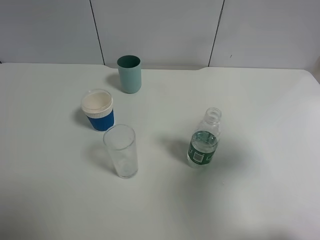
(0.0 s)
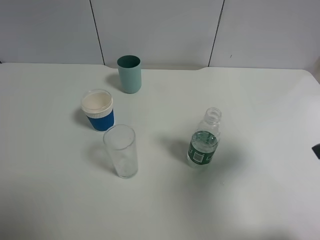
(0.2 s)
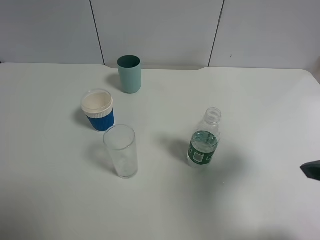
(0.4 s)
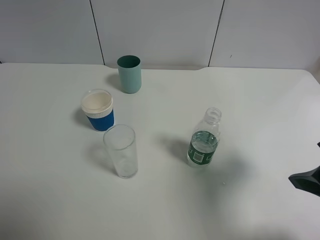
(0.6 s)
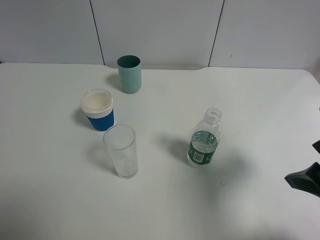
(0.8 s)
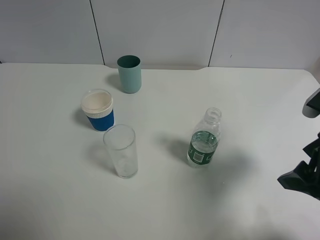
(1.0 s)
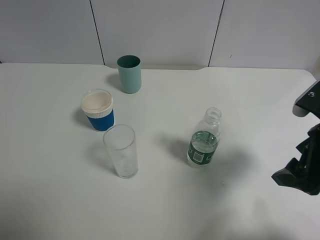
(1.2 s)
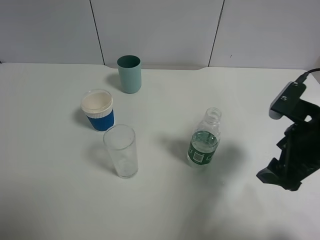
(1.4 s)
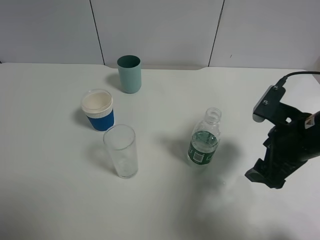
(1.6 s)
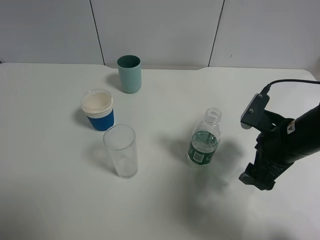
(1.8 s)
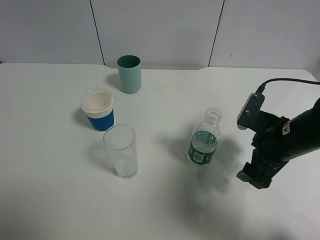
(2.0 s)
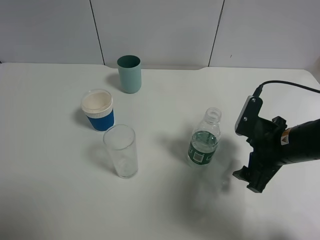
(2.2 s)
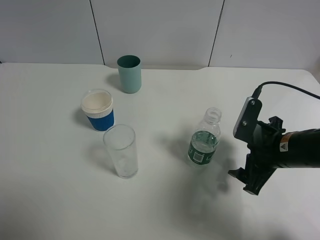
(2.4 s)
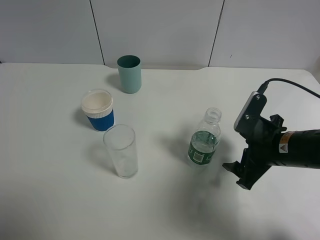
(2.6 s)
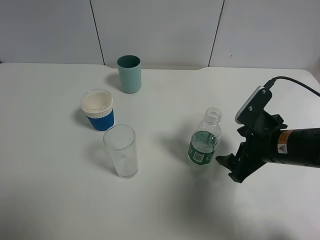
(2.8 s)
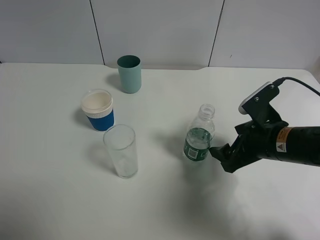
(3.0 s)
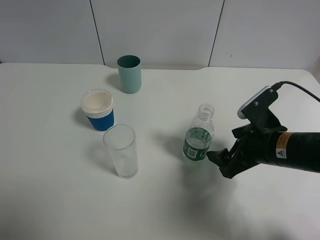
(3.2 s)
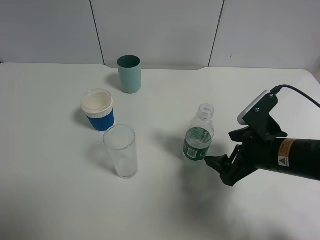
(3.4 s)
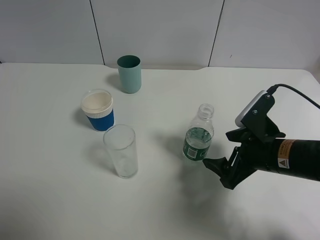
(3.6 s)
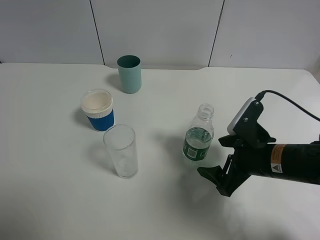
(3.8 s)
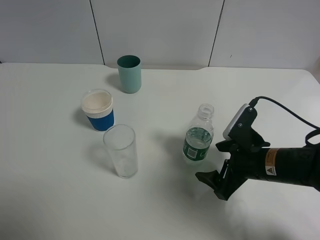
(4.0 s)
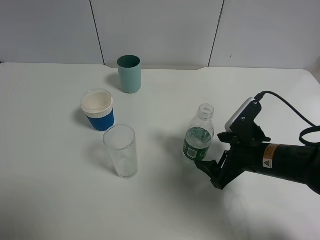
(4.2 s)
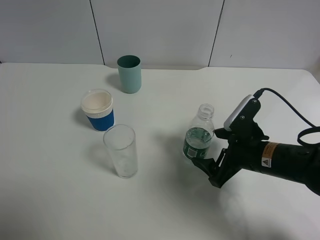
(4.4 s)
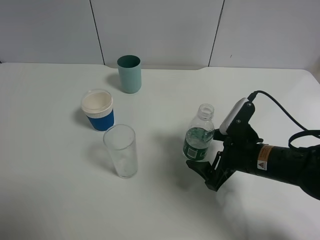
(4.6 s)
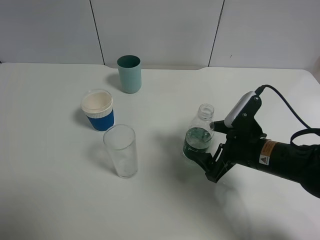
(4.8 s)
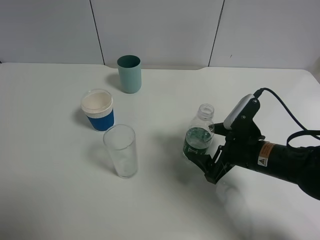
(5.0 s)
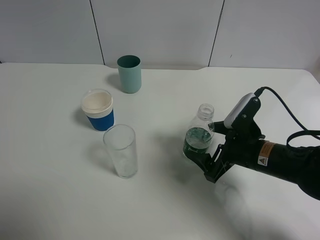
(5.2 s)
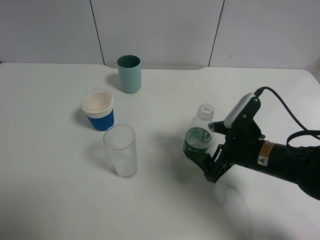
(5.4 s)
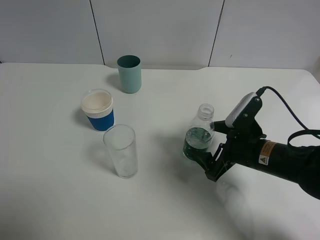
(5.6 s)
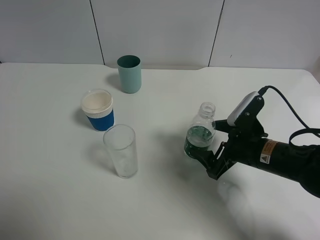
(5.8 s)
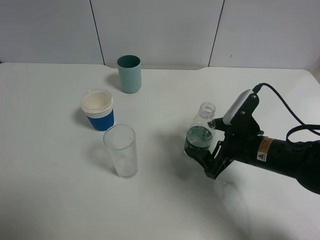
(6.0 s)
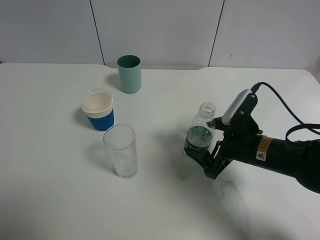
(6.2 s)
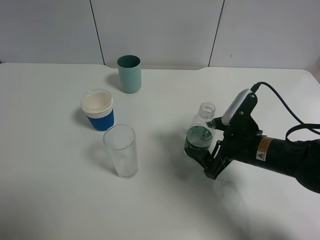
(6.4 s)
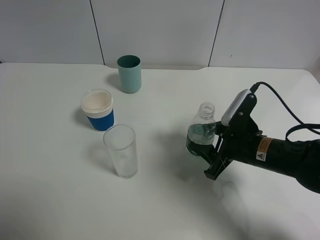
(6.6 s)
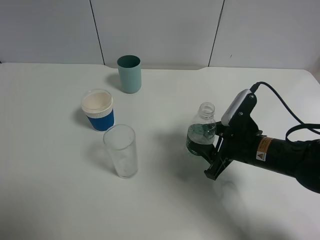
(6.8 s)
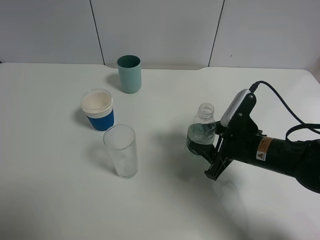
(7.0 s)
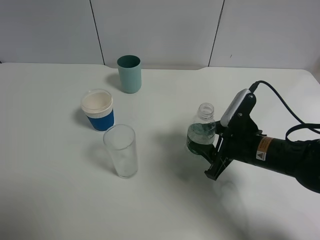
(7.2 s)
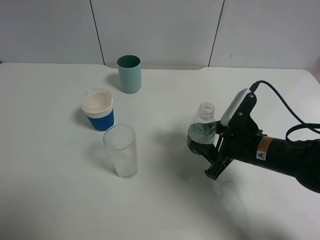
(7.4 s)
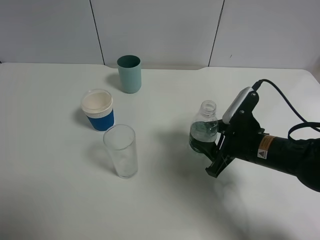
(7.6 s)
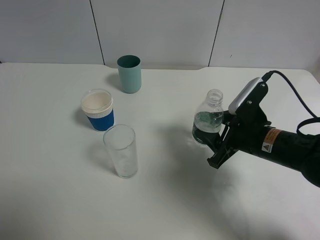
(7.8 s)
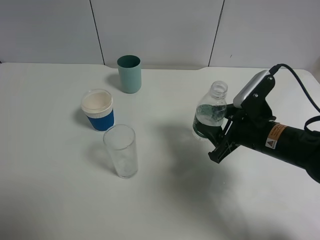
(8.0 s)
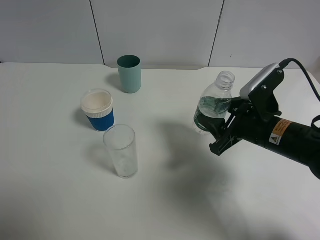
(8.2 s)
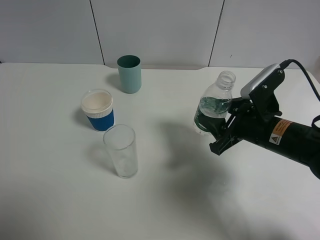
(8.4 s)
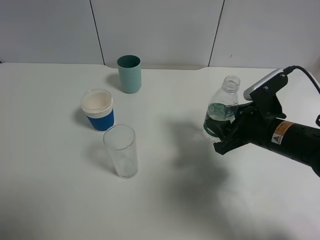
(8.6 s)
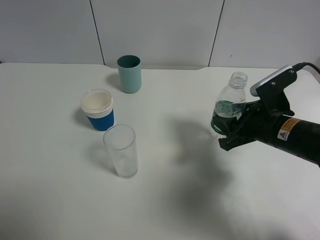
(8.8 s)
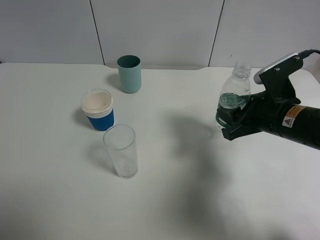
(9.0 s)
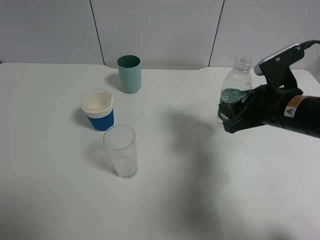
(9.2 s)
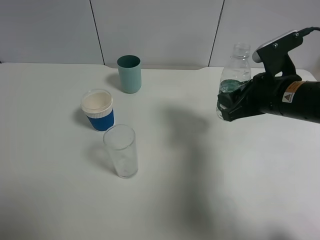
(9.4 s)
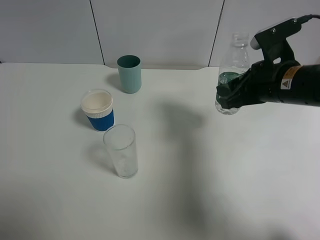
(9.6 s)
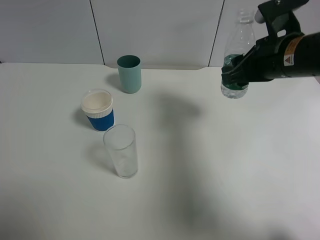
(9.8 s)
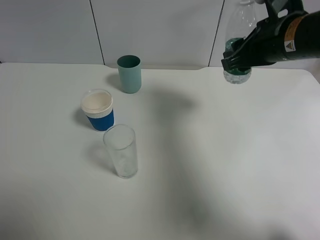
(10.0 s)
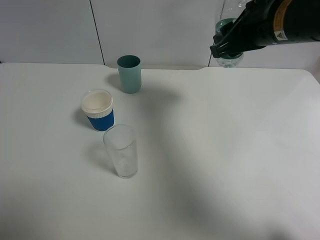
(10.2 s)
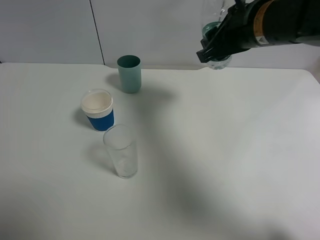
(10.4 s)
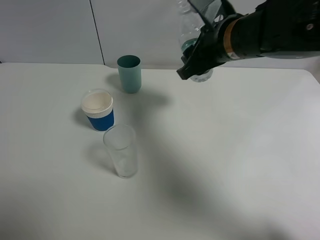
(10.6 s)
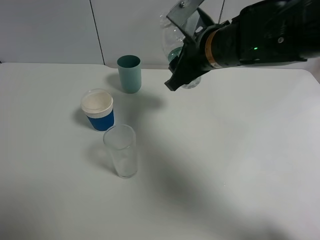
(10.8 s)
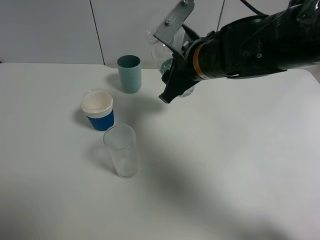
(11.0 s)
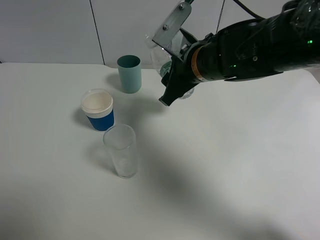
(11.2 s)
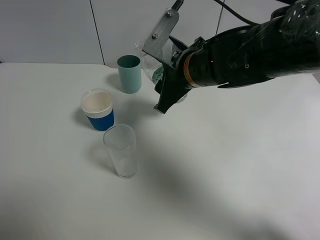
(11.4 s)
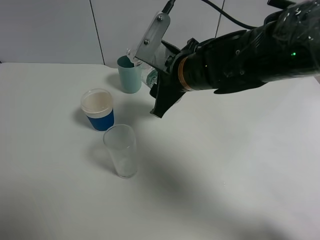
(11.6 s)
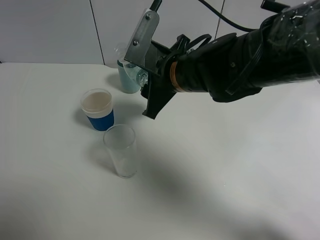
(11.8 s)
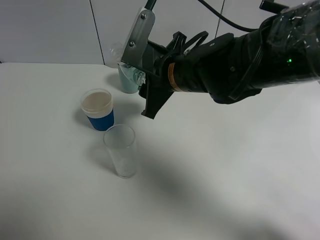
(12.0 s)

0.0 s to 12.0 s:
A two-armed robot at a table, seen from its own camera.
Task of the whole recording: use a gripper to hold the bottle of the drink and pour it into a random cup.
Step, 0.0 to 6.8 s: Grasp the mineral water bottle with the right gripper.
0.0 to 1.6 s: The right gripper goes roughly 15 cm downward, forward and to the left.
3.0 to 4.4 s: There are only small adjustments of the grippers.
4.4 to 6.0 s: The grippers make only small movements.
6.0 to 7.6 s: The right gripper closes its fingers.
7.6 to 9.0 s: The right gripper shifts about 5 cm upward.
9.0 to 10.4 s: The right gripper shifts roughly 15 cm upward, to the left and forward.
10.4 to 12.0 s: The right gripper moves to the left and downward, roughly 15 cm.

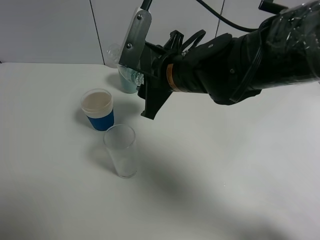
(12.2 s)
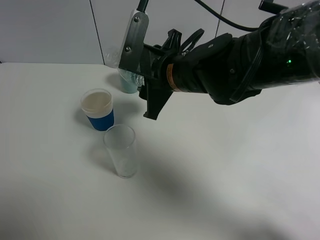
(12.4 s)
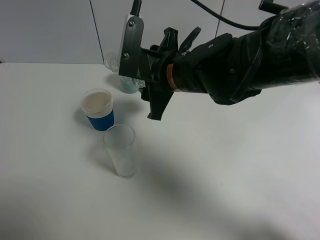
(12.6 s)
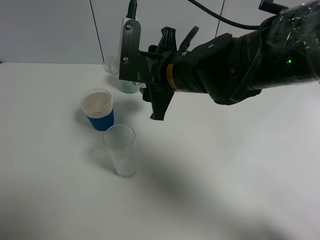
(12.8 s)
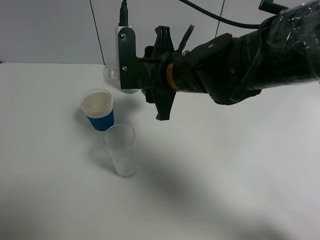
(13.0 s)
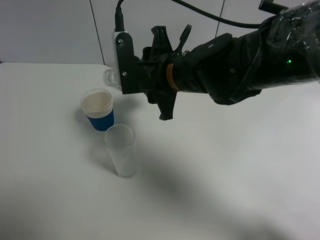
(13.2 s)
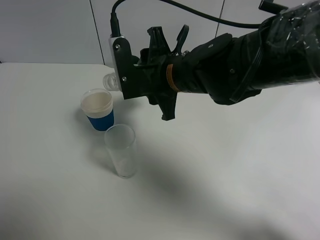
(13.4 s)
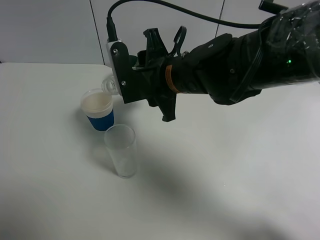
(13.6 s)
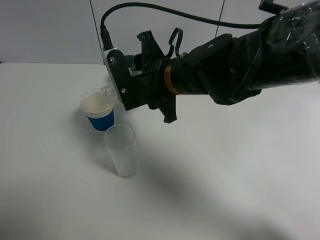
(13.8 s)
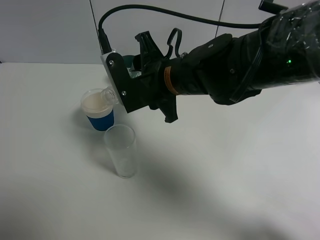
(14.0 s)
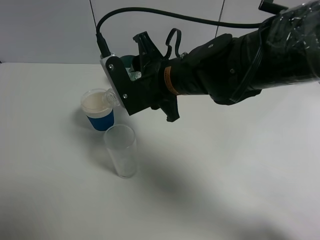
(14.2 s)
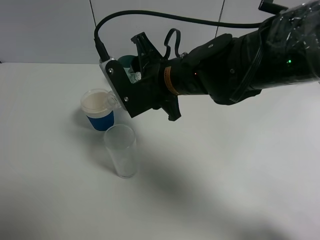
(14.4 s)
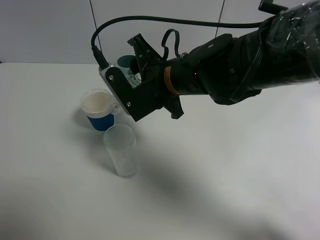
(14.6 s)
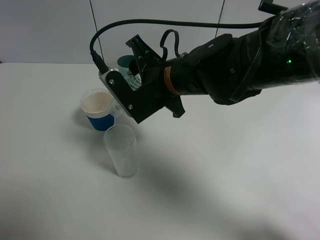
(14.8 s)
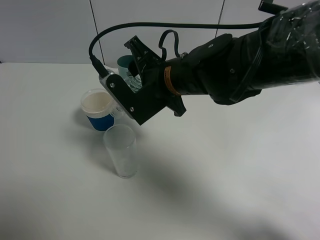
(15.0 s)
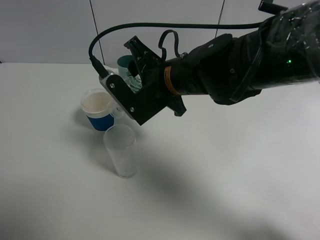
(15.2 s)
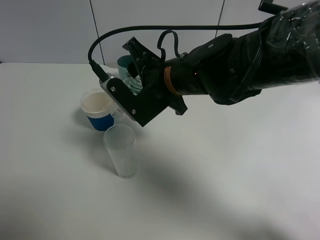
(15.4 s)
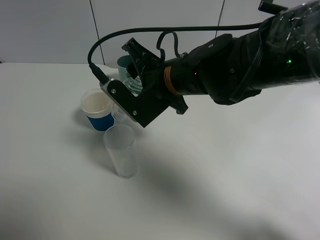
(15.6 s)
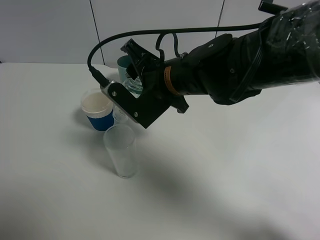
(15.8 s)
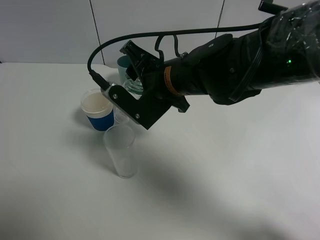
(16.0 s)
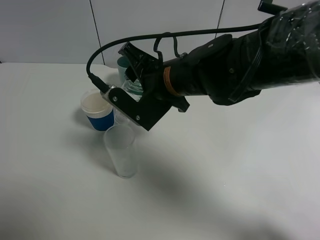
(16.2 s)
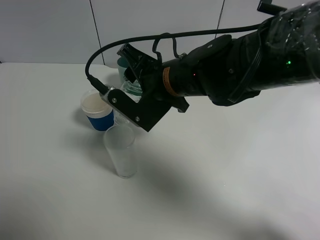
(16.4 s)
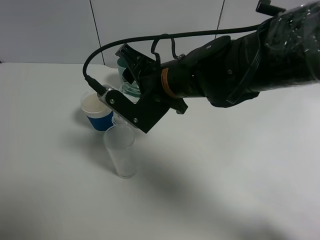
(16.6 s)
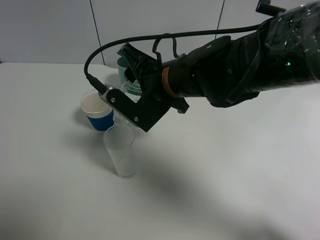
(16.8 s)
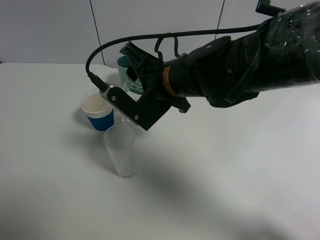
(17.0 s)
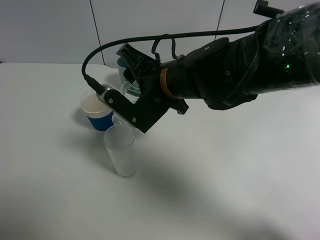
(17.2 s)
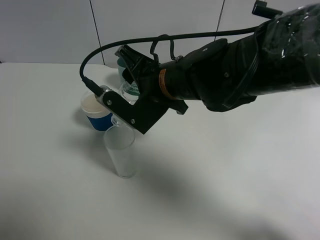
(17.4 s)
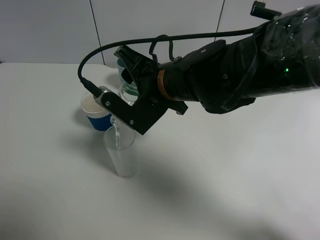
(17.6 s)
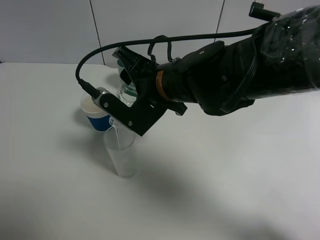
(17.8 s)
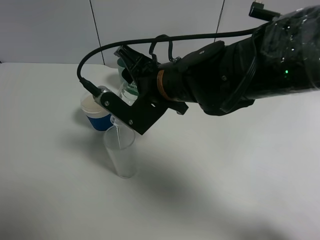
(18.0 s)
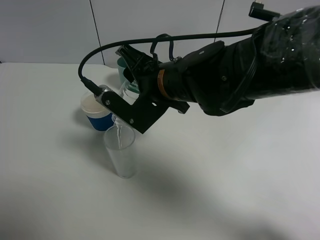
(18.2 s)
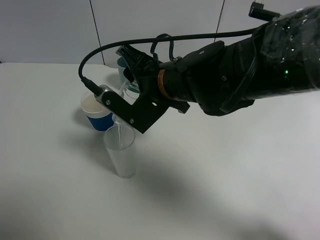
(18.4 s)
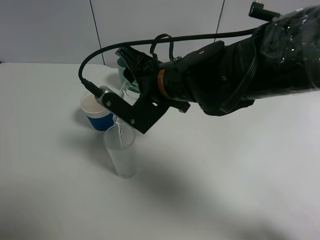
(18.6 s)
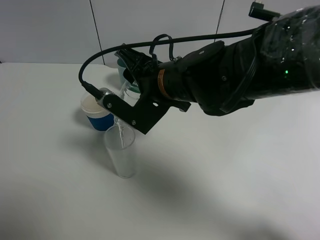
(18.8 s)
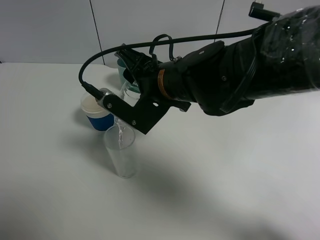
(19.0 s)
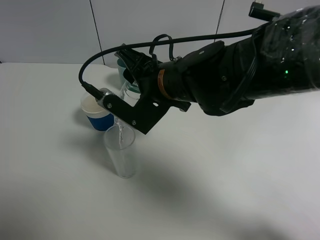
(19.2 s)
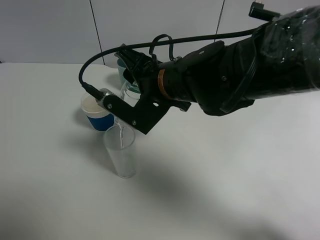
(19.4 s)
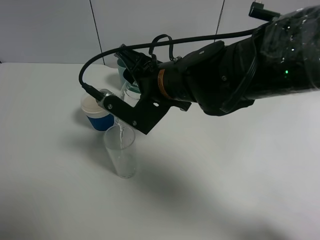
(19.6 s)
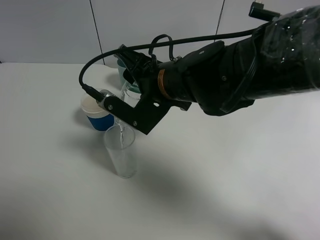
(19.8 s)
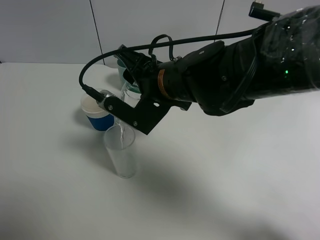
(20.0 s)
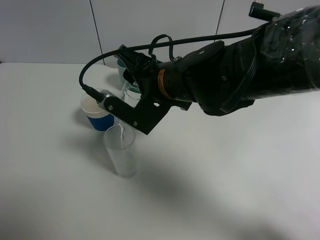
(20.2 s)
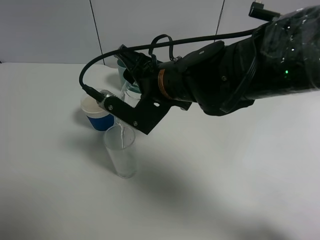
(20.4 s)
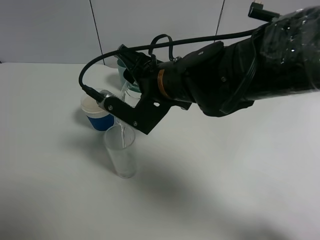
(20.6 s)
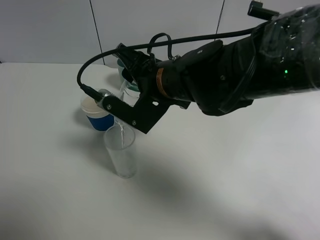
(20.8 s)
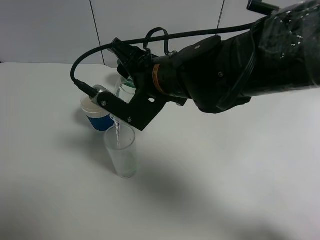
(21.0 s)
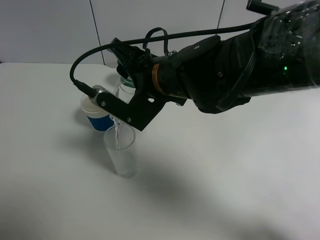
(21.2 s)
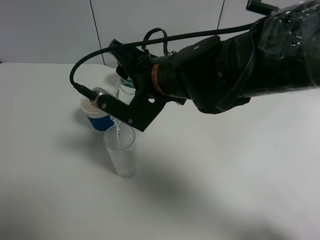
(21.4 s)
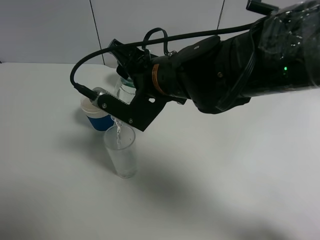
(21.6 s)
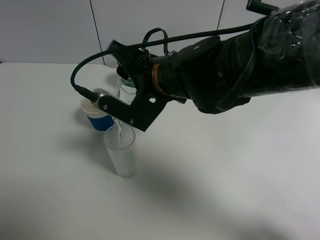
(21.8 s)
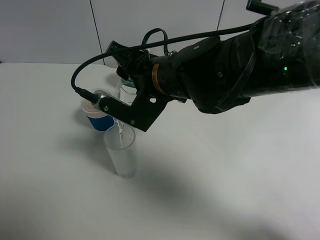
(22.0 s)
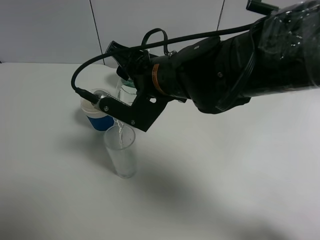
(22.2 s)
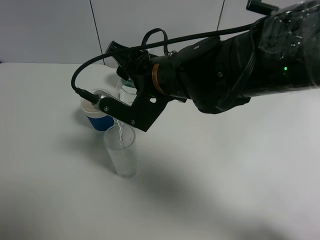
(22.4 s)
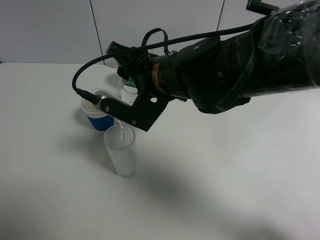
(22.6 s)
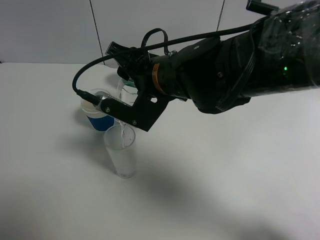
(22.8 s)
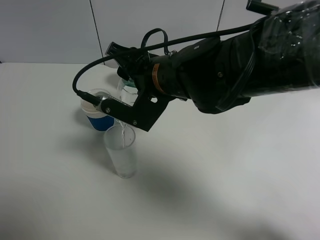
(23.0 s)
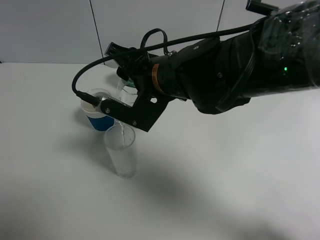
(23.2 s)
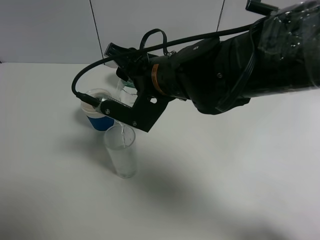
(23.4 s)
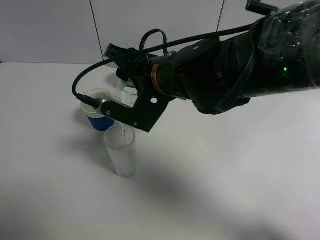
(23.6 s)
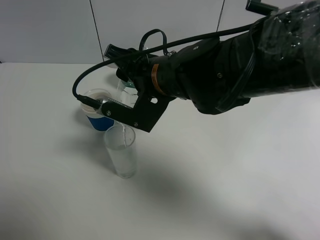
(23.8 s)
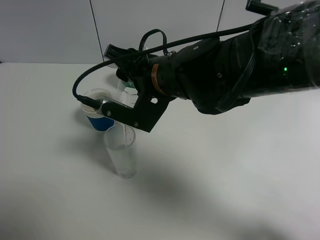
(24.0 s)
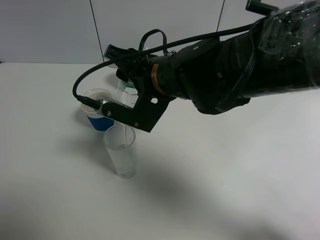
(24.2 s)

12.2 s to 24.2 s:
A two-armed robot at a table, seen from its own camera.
Task of the whole recording: use a gripper to hold the bottle of the drink and pour it into a random cup.
13.8 to 15.2 s: The grippers stay close to where they were, moving slightly.
15.2 to 18.2 s: The grippers make only small movements.
18.2 to 19.8 s: Both grippers stay about where they are.
19.8 to 21.2 s: Neither gripper changes place.
21.2 to 22.6 s: The grippers make only small movements.
22.6 to 24.2 s: Both grippers stay about where they are.
